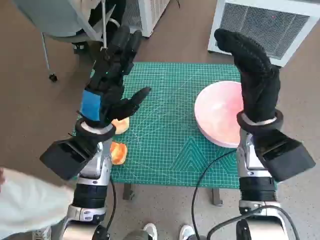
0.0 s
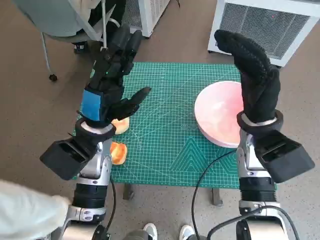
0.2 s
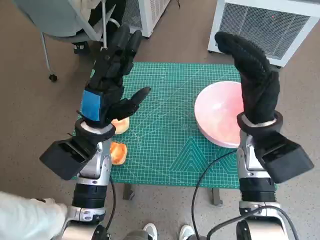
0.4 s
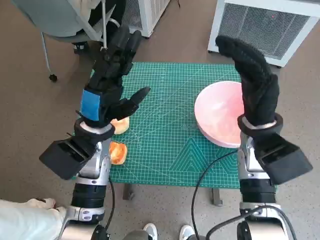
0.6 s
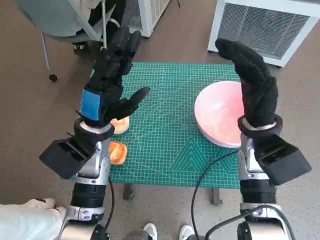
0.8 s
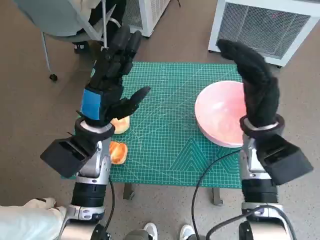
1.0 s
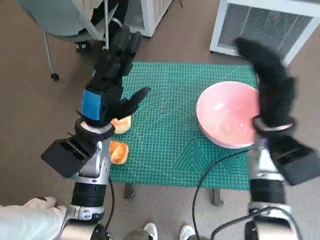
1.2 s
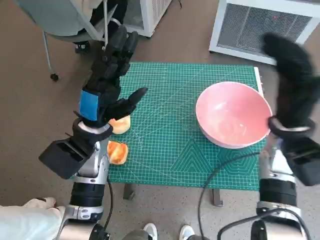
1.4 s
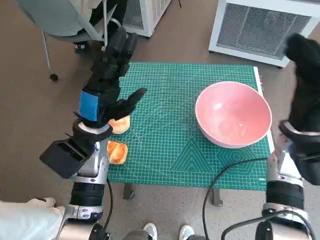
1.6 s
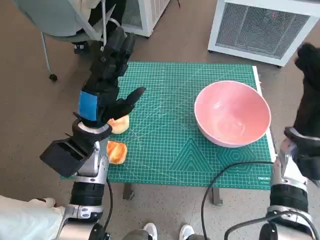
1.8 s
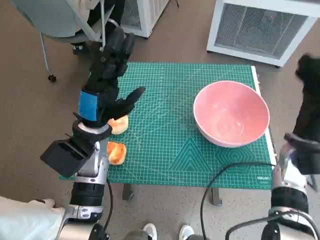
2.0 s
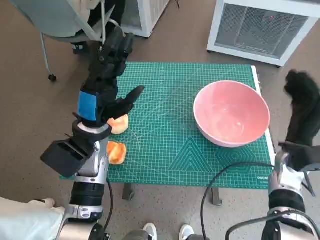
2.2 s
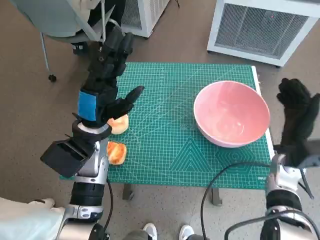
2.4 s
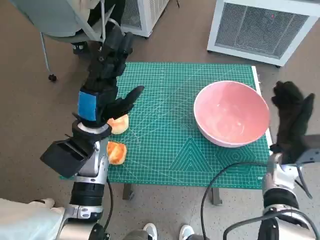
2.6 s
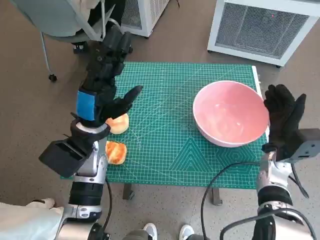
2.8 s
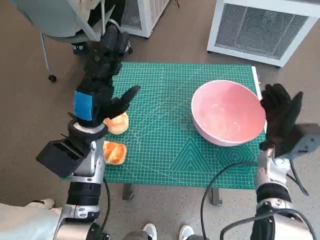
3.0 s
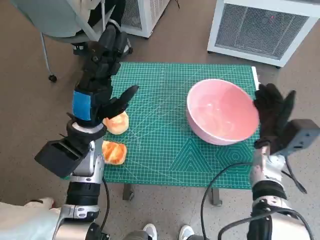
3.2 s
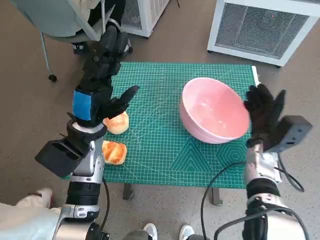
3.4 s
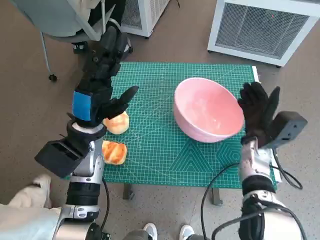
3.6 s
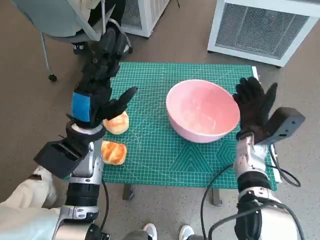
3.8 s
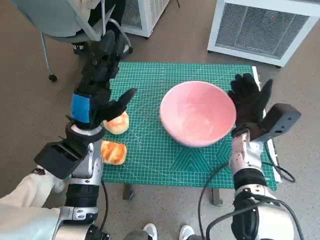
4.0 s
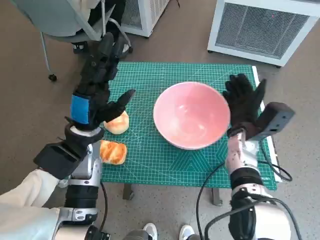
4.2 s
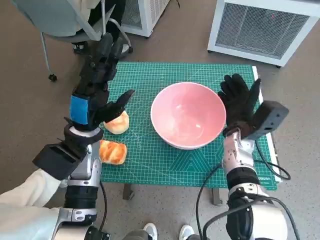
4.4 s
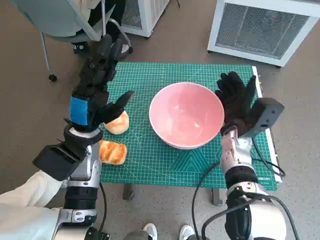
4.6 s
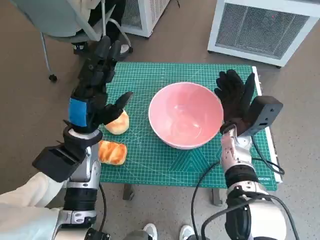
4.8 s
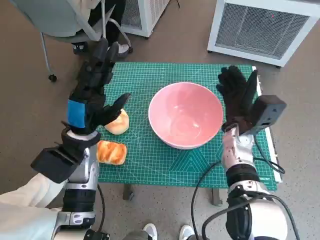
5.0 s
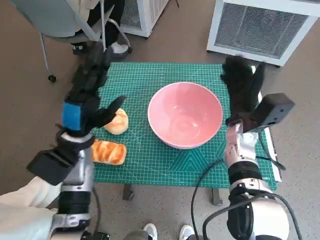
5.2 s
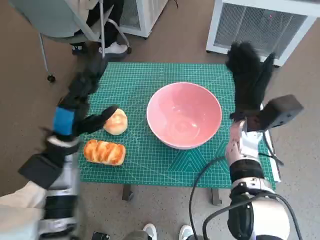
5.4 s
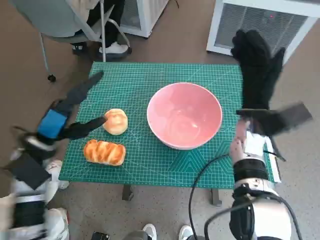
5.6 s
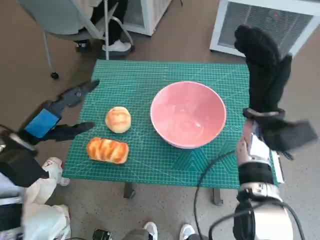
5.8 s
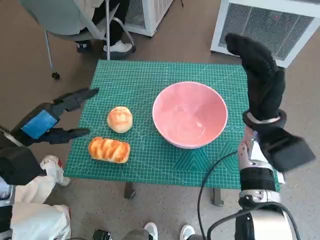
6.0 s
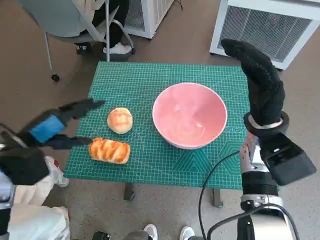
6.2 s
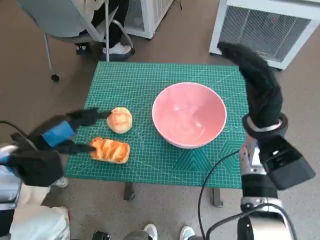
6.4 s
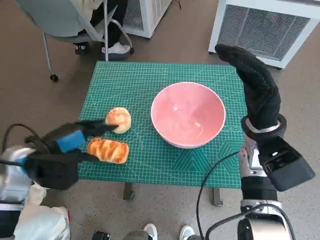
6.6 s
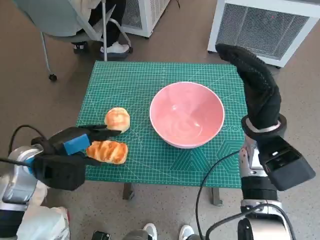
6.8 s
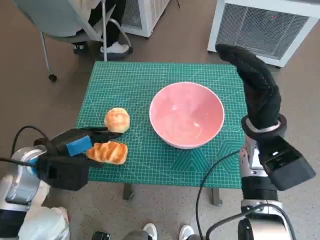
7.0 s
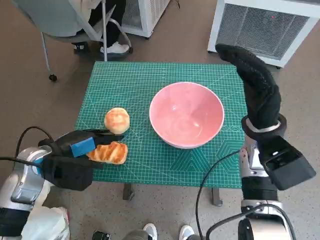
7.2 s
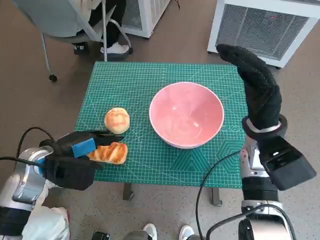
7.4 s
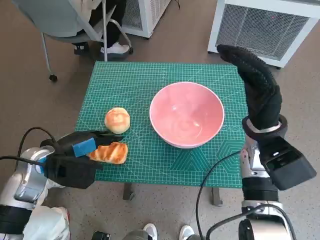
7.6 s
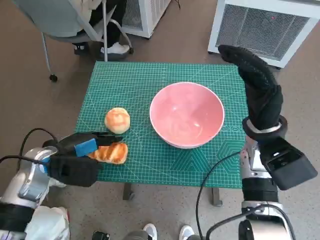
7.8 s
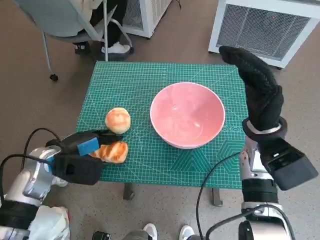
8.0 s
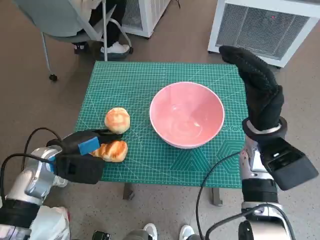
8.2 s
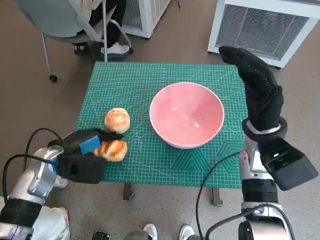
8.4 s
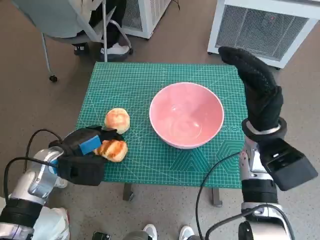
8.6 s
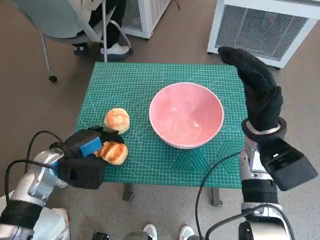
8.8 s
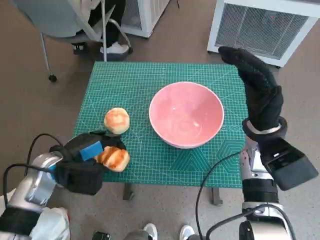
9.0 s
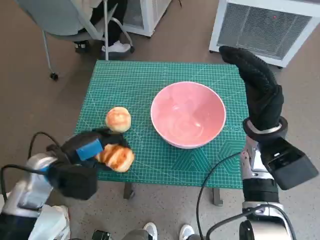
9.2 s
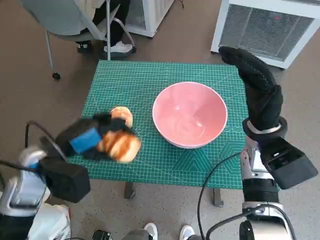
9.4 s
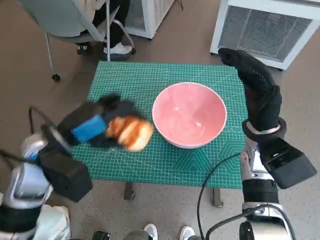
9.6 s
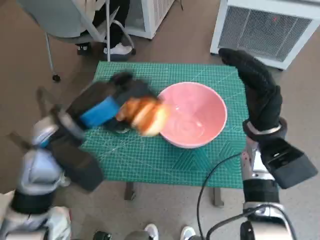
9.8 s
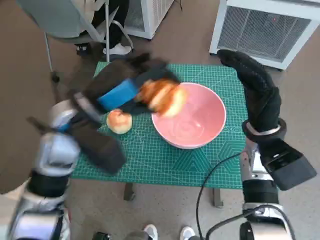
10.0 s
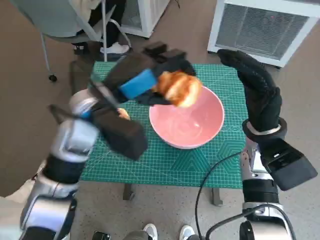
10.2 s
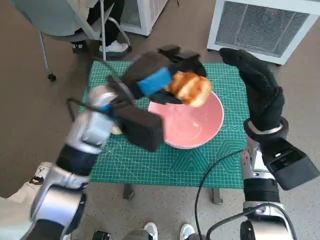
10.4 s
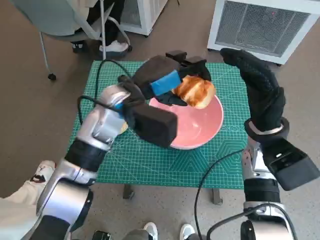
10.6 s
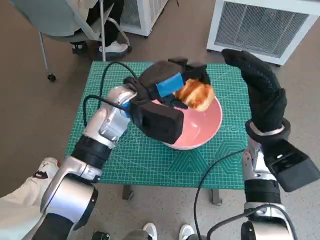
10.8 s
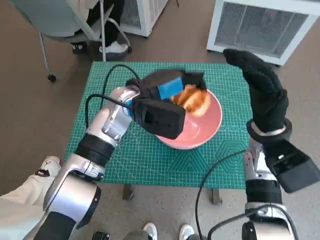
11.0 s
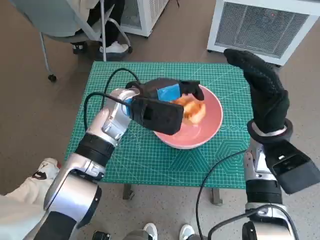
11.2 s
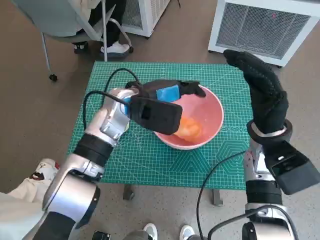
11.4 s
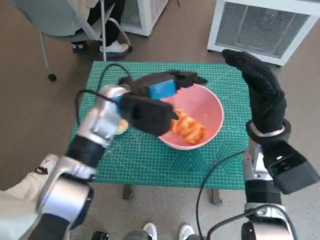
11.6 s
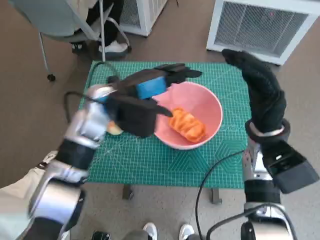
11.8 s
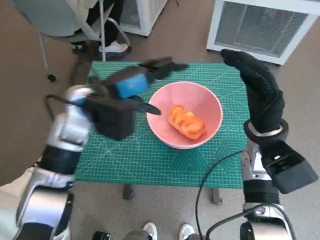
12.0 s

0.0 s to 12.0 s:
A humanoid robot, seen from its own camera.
Task of the whole recording: Push the bowl to the center of the table and put the bread into the bowl.
Step, 0.0 to 5.4 s: Move the pink bowl to the center of table with right hand.
Step, 5.6 to 8.4 s: Grasp the long bread with left hand.
Step, 8.6 to 11.6 s: Place the long bread in pink bowl with left hand.
1.6 to 3.0 s: The right hand is displaced downward by approximately 10 cm.
3.0 to 4.4 s: The right hand shifts approximately 10 cm to the left.
4.4 to 6.0 s: The right hand travels upward by some 10 cm. The left hand is displaced to the left by approximately 10 cm.
6.0 to 7.6 s: The left hand moves approximately 5 cm.
7.6 to 9.0 s: The hands stay close to where they were, moving slightly.
9.0 to 10.4 s: The left hand shifts some 20 cm to the right, upward and forward.

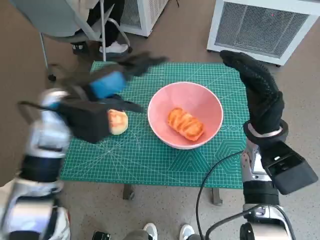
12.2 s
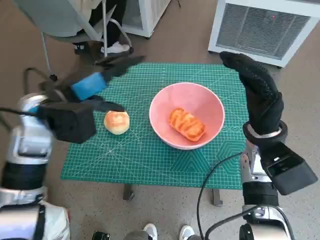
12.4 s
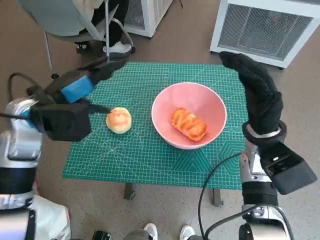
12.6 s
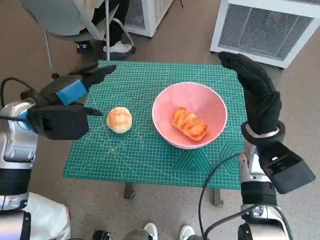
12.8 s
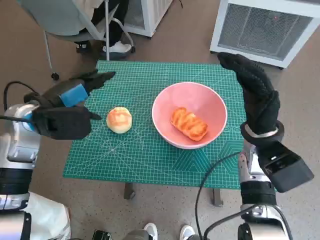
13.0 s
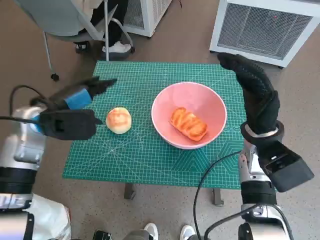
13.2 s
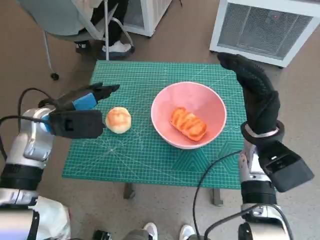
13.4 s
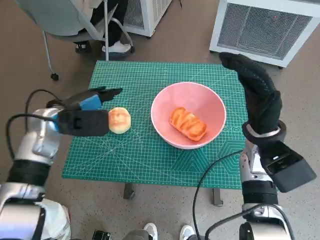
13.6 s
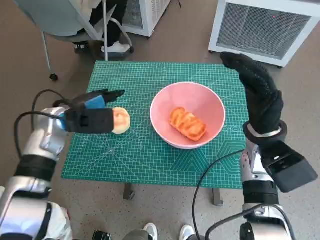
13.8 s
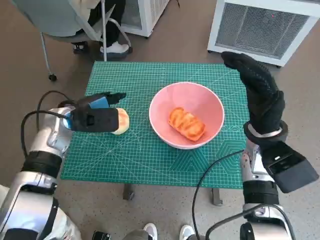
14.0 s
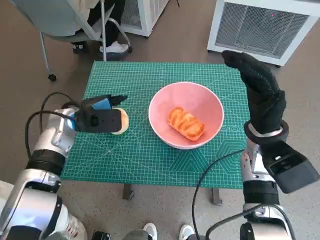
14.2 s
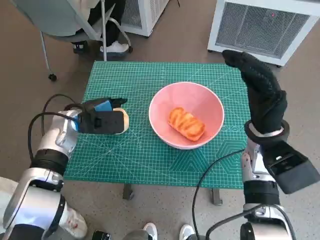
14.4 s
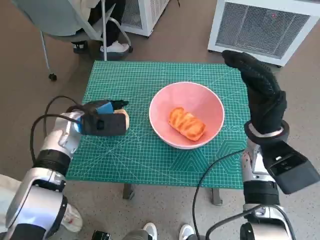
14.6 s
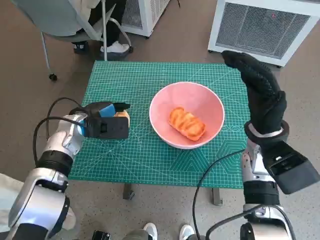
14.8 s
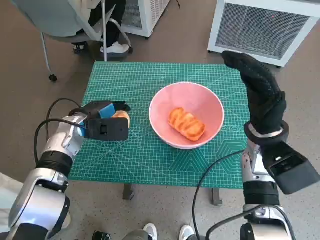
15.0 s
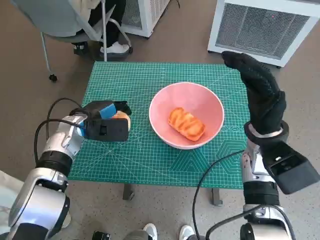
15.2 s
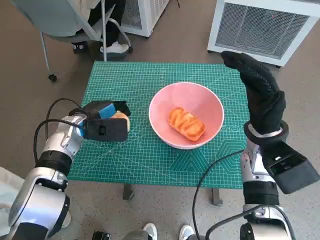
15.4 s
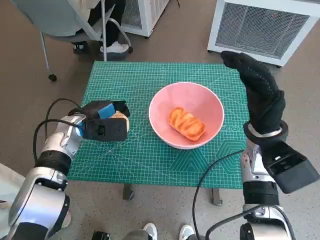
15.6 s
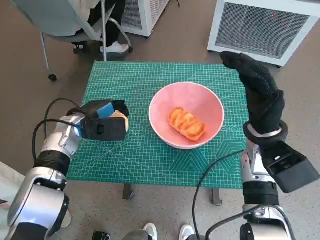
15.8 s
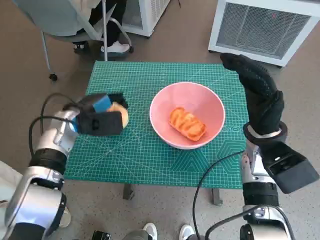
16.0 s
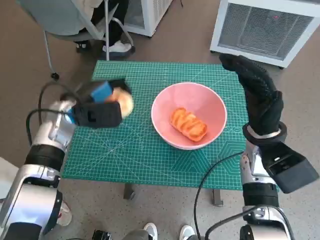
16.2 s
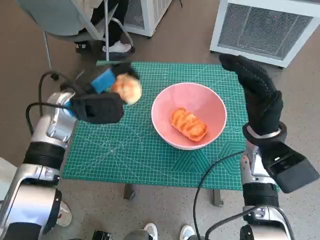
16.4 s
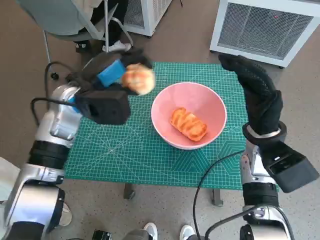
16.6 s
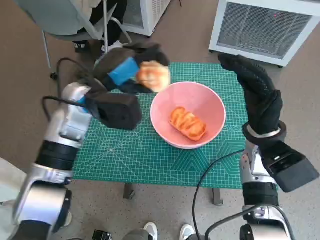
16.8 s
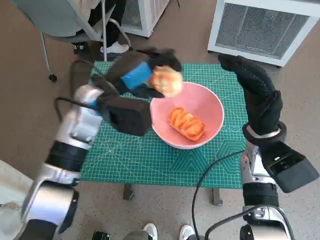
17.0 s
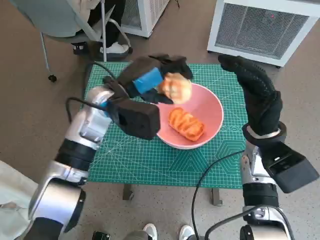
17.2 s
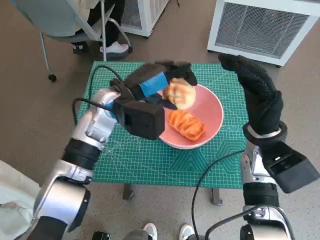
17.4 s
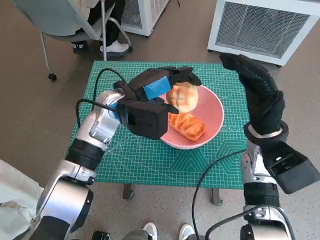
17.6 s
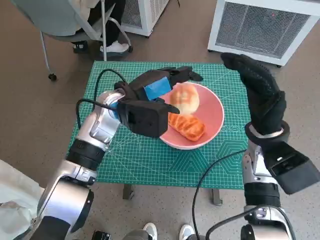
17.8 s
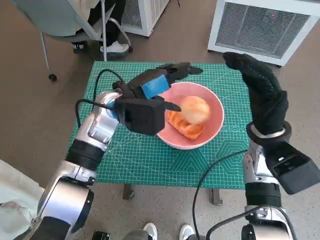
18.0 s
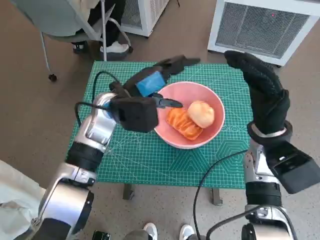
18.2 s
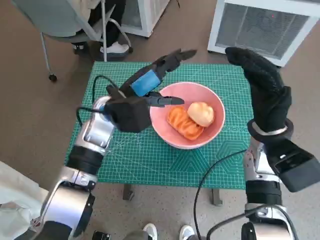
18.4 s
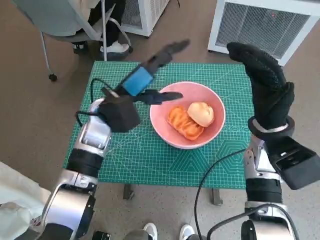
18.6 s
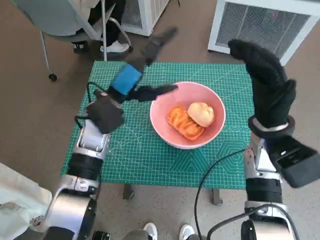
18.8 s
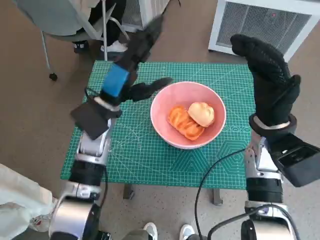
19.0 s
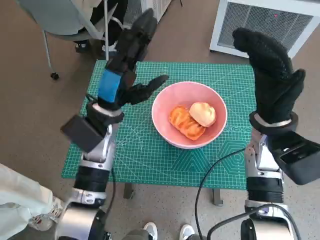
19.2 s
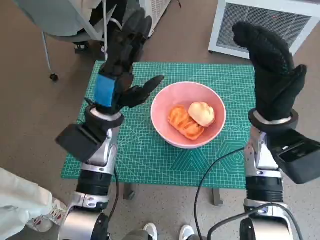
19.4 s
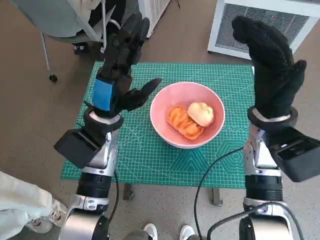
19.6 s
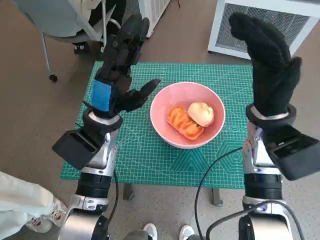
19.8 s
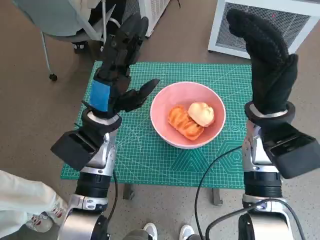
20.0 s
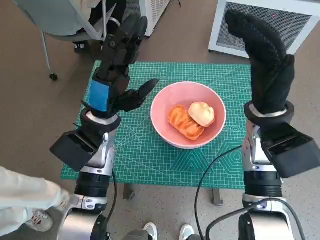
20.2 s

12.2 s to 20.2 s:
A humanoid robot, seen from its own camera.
Task of the whole recording: Push the bowl to the center of the table and put the bread into the bowl.
Step, 12.2 to 15.6 s: Grasp the round bread with left hand.
Step, 15.8 to 18.4 s: Place the round bread in pink bowl with left hand.
12.2 to 13.8 s: The left hand travels downward and to the left by some 10 cm.
13.8 to 15.4 s: The left hand changes place by roughly 5 cm.
15.4 to 17.0 s: The left hand goes roughly 15 cm upward and to the right.

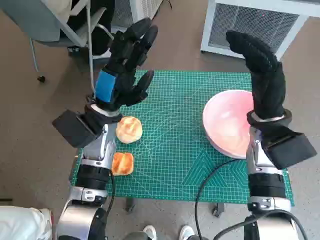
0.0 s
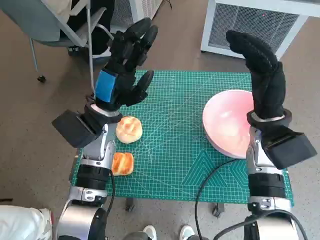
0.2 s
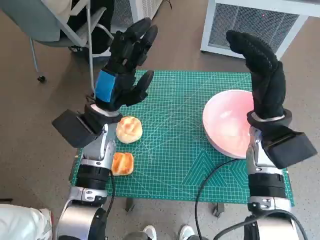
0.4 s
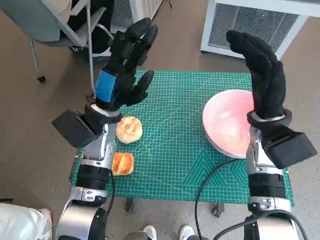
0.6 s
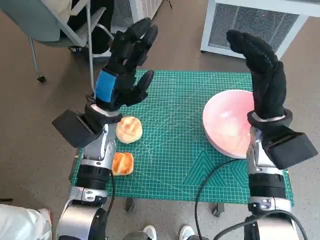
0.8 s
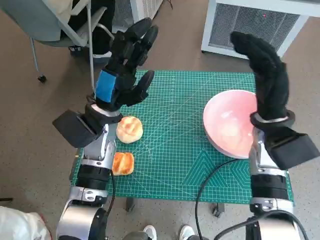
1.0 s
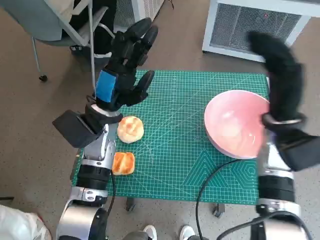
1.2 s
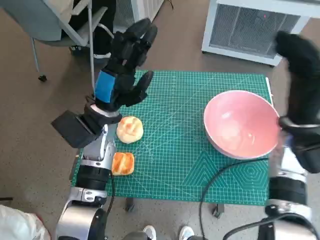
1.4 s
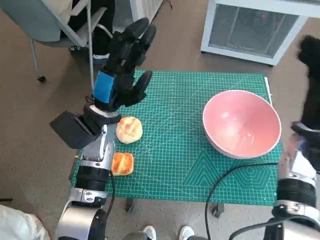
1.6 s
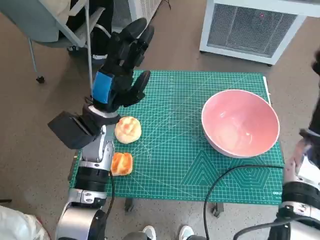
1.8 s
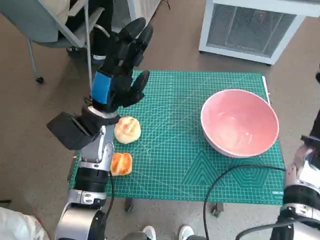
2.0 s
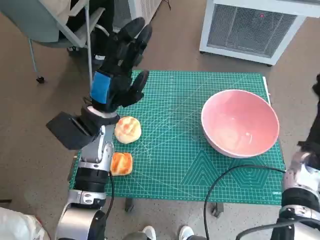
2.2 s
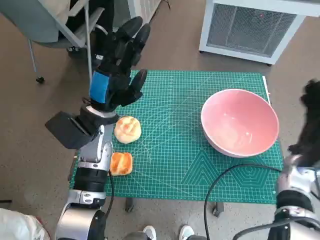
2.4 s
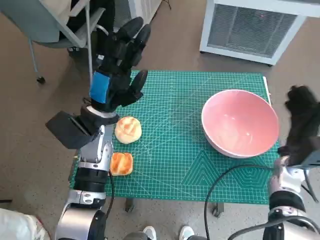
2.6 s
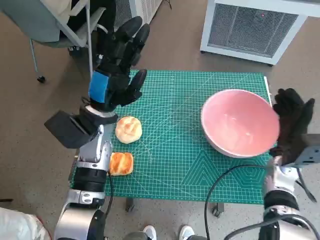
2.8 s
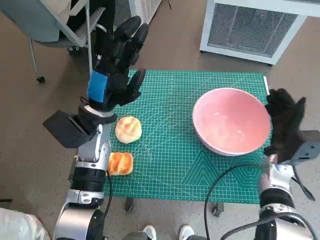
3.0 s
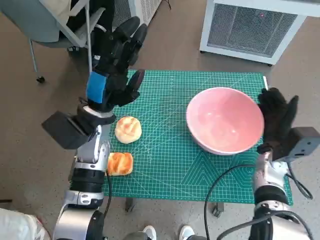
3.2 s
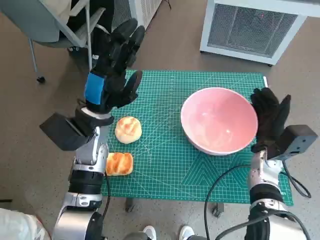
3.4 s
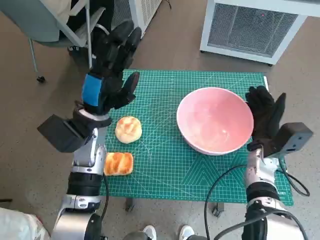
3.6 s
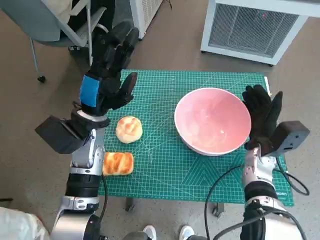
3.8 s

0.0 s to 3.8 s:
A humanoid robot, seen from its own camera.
Task of the whole recording: Push the bowl to the center of the table and put the bread into the bowl.
1.2 to 2.6 s: The right hand travels downward and to the right by roughly 10 cm.
2.6 to 3.8 s: The right hand travels to the left by about 5 cm.
